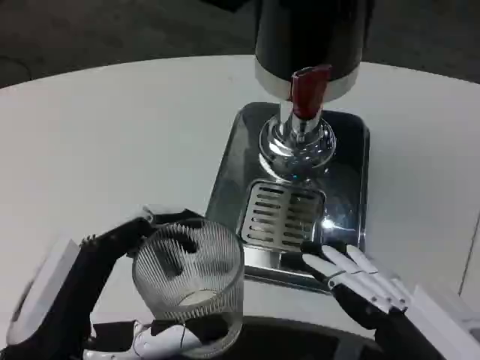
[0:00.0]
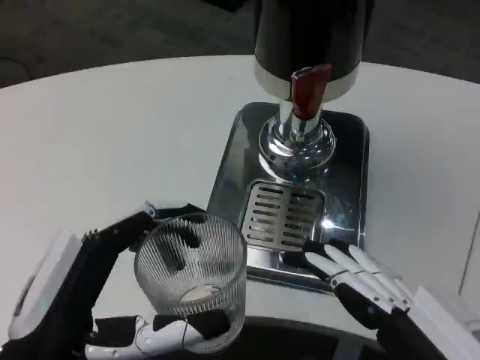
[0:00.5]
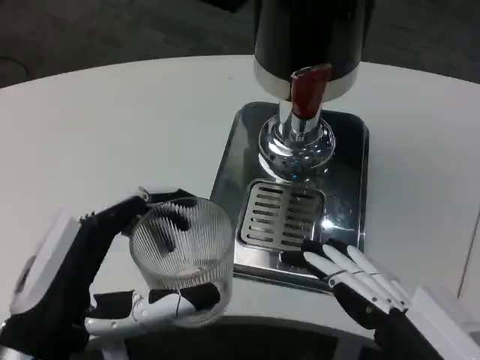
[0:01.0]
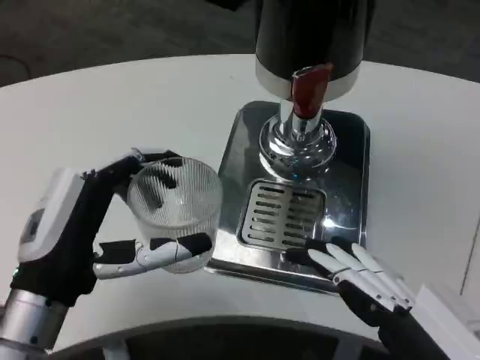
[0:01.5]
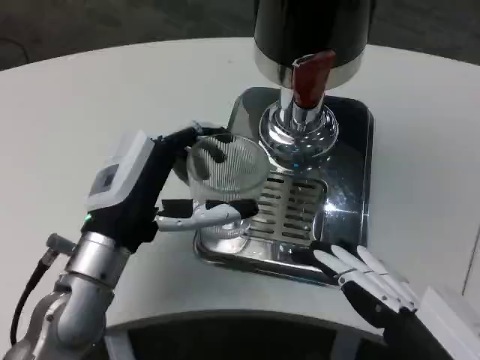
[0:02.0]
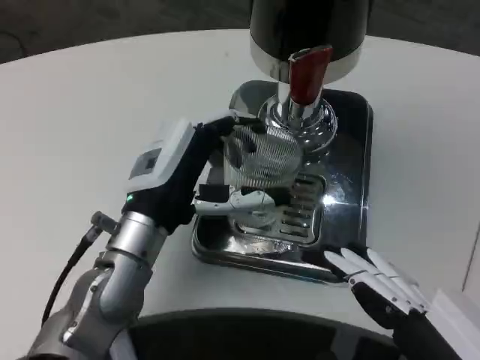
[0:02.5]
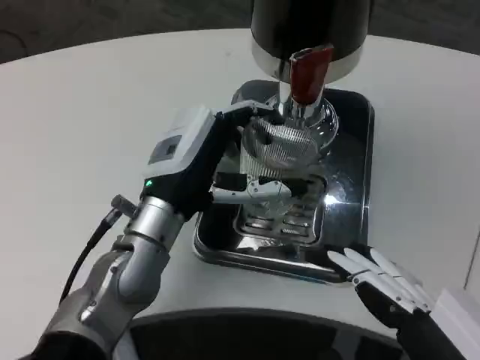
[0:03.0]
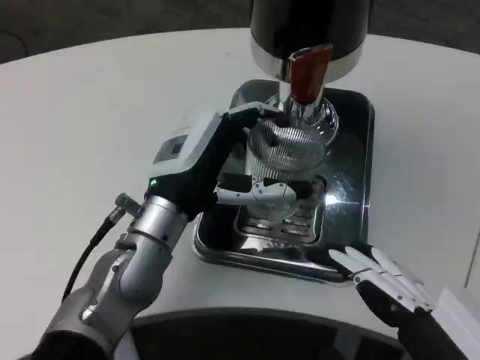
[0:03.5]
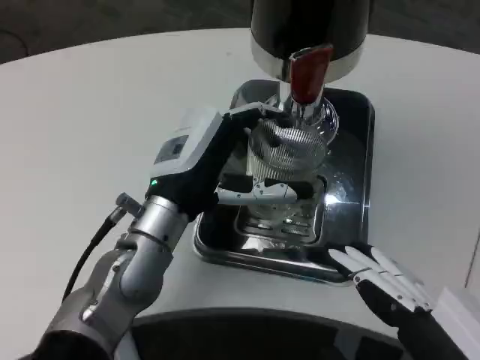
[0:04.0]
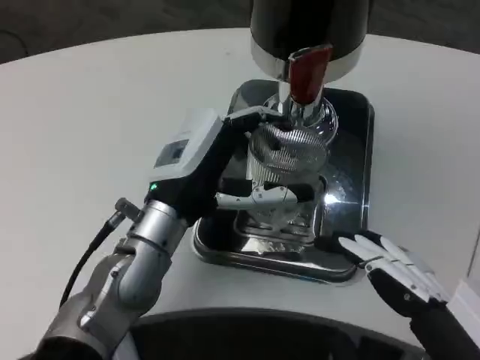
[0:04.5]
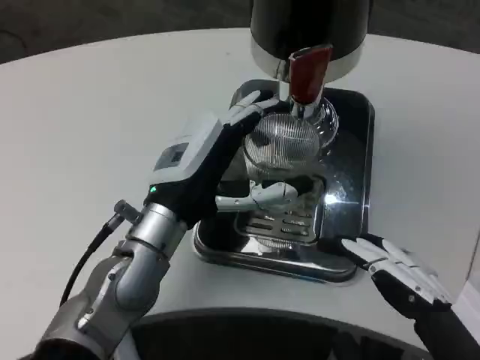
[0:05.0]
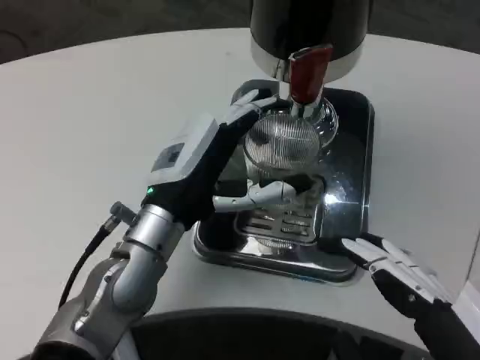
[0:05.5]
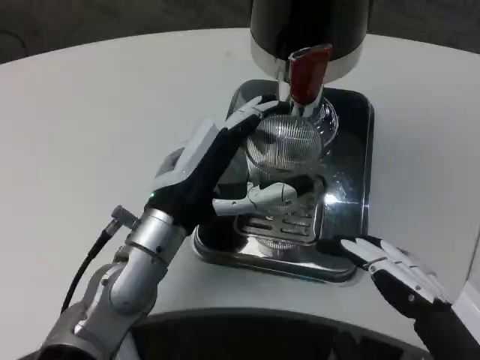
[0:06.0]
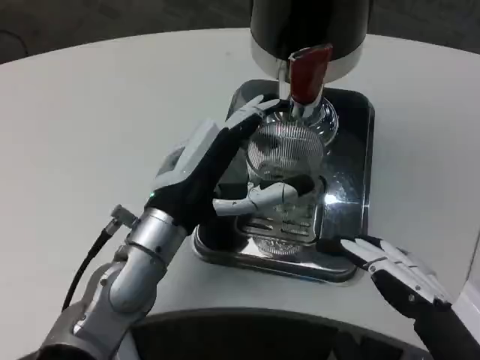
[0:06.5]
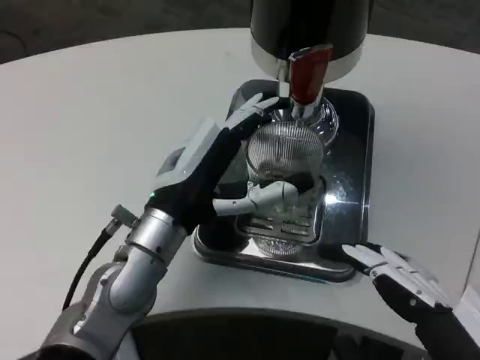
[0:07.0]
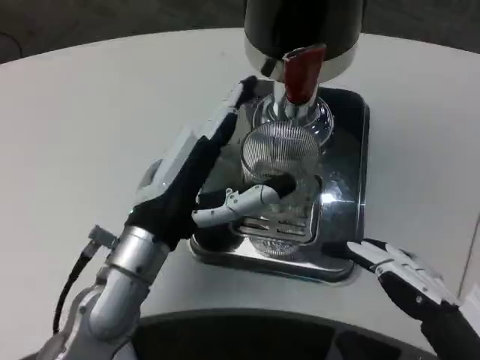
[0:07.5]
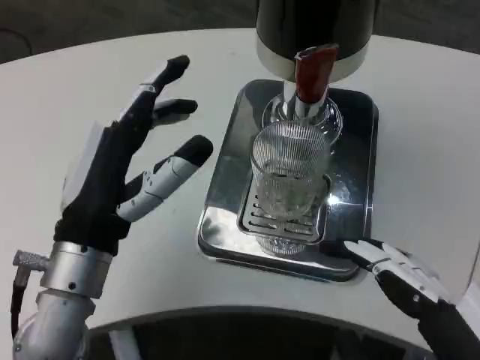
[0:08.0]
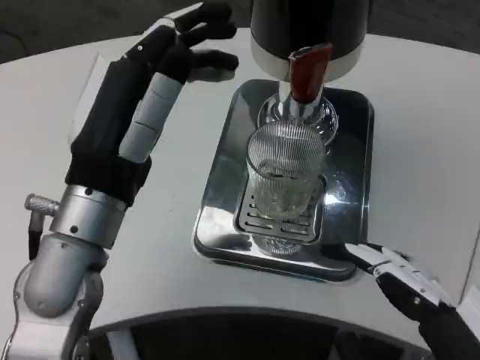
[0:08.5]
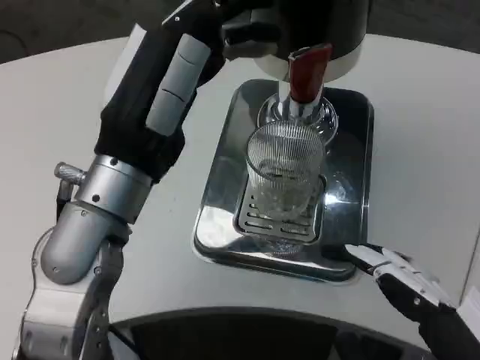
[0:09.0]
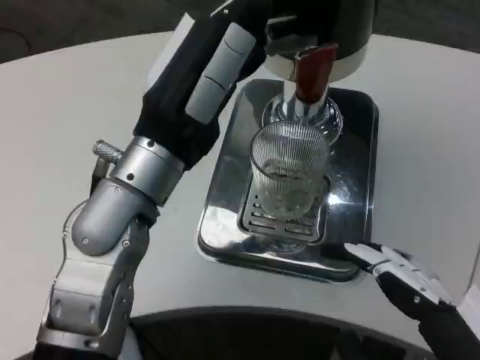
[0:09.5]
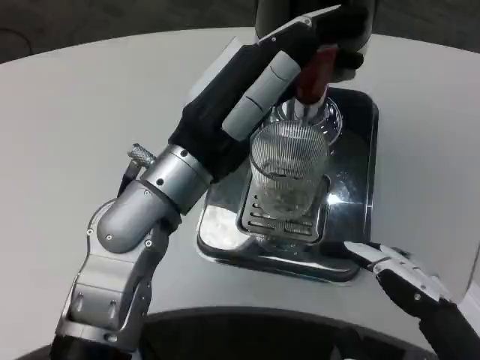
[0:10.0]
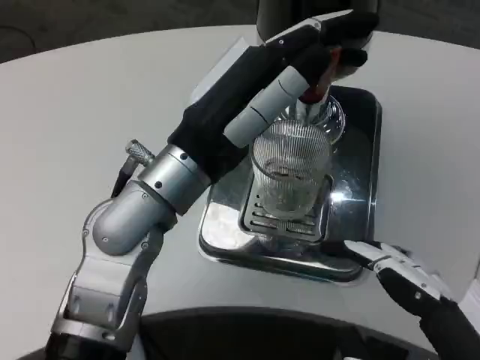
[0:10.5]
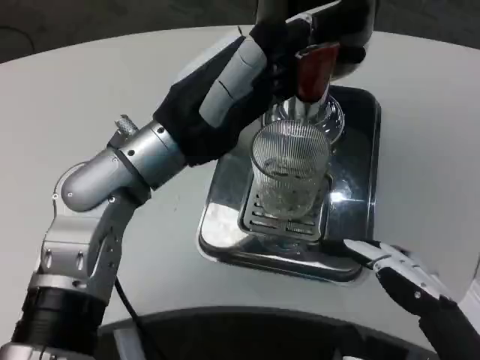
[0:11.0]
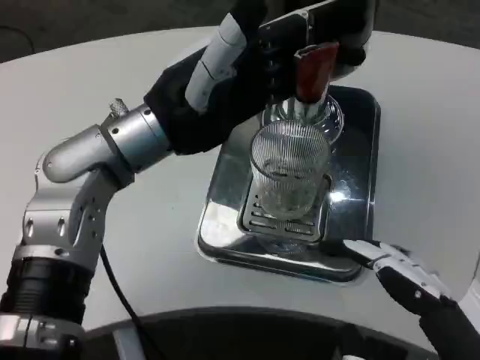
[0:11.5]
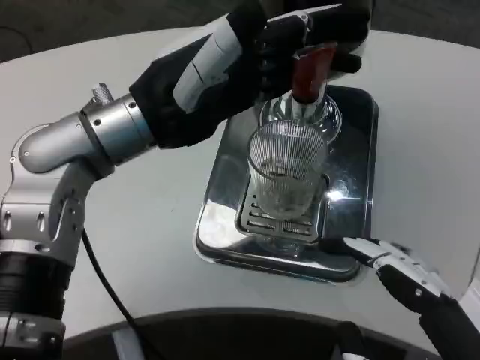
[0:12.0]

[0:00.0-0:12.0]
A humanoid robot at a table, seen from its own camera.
Task of the whole recording: Grasp the cup under the faucet to collect the drink, then remove the cup.
0:00.0 to 0:02.0: The left hand moves forward, approximately 15 cm.
0:02.0 to 0:04.0: The left hand shifts by some 5 cm.
0:04.0 to 0:06.0: The hands stay close to where they were, moving slightly.
0:06.0 to 0:08.0: The left hand shifts some 5 cm backward.
0:08.0 to 0:10.0: The left hand moves upward and to the right, approximately 10 cm.
0:10.0 to 0:12.0: The left hand shifts roughly 5 cm to the left.

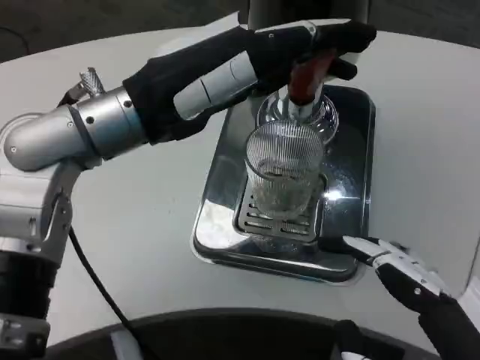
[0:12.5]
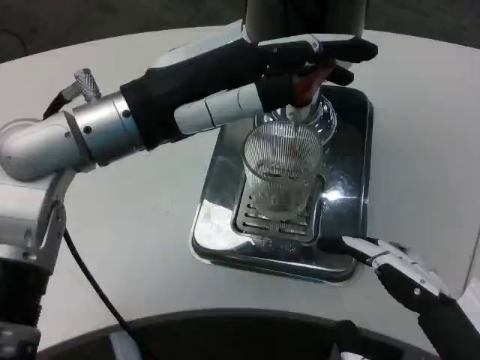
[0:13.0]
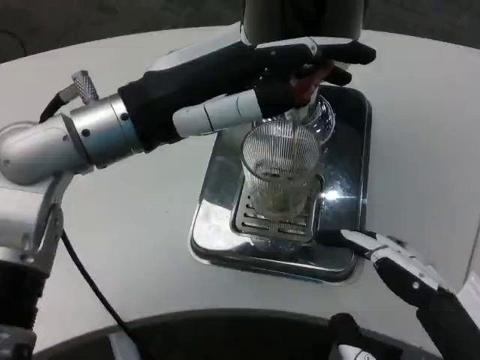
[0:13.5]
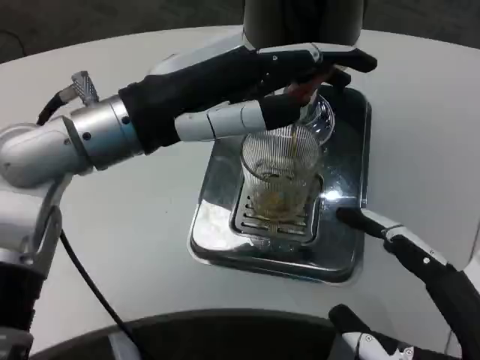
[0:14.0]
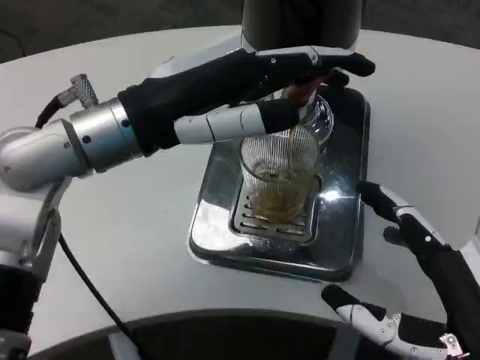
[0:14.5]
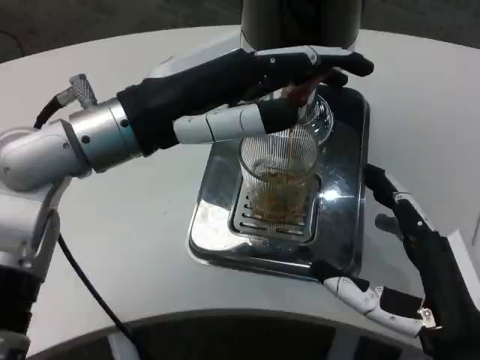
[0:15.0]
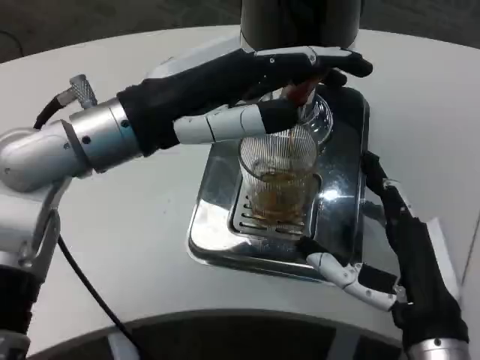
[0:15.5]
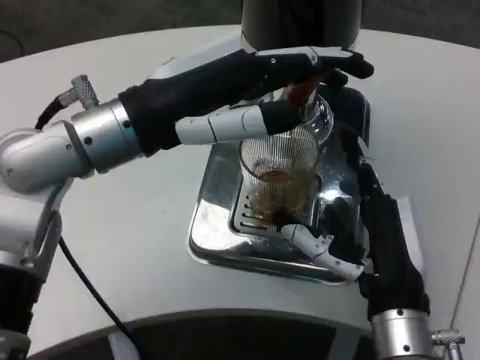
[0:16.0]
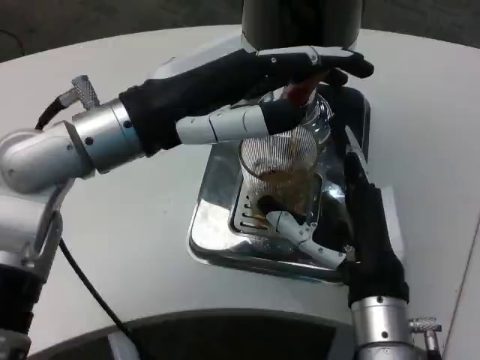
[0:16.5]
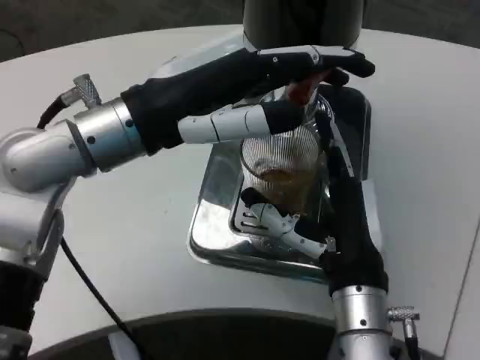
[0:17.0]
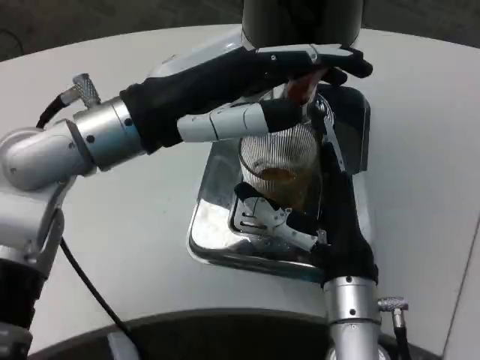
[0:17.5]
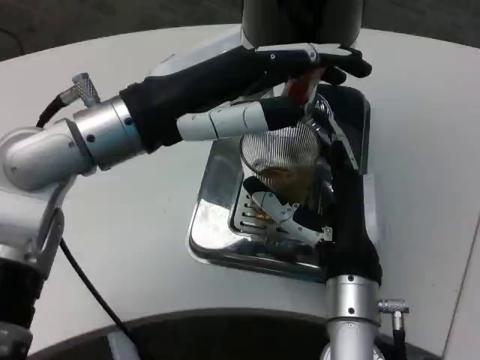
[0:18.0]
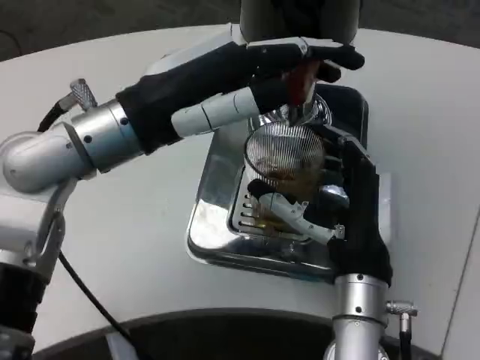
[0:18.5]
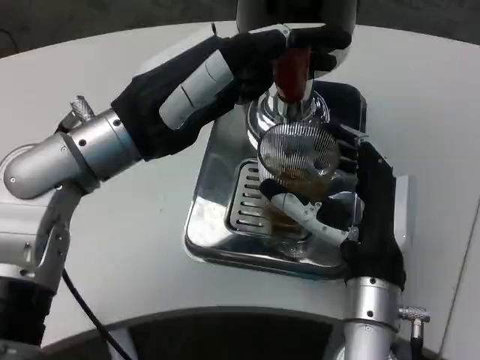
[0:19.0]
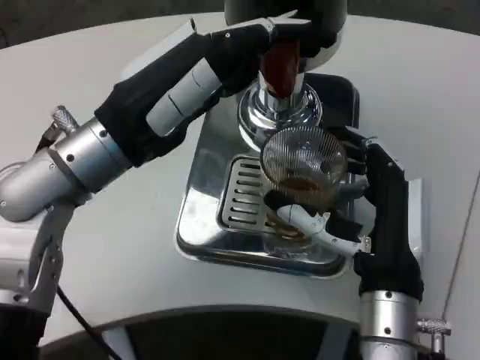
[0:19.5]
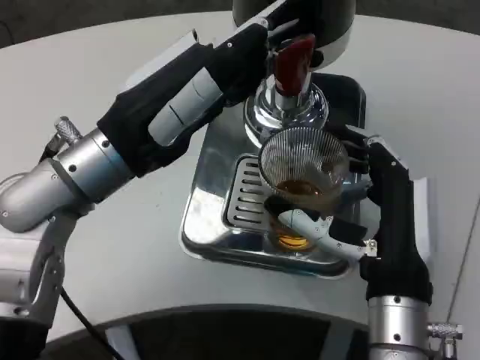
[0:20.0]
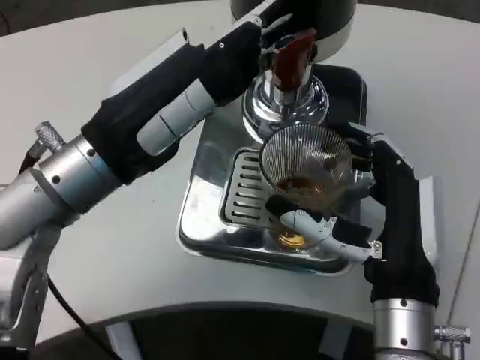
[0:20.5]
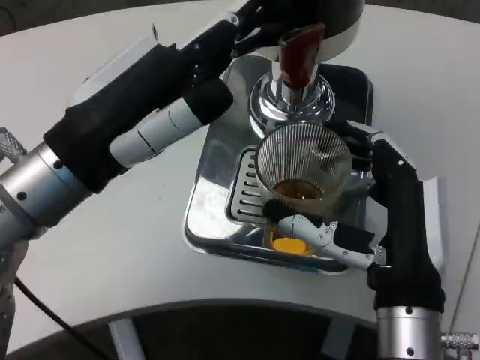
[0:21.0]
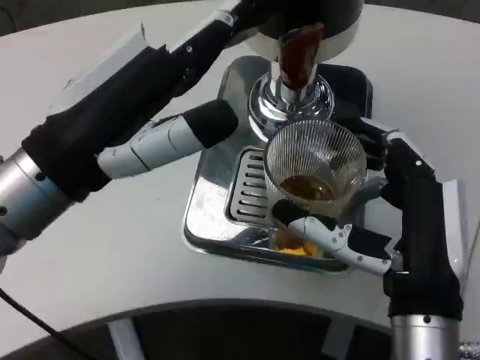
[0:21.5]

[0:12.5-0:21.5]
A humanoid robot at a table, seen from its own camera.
Task of the whole recording: Grasp the cup under the faucet to collect the drink, then remove the cup.
0:12.5 to 0:14.5: The right hand moves forward, some 5 cm.
0:14.5 to 0:17.0: The right hand heads forward and to the left, covering some 15 cm.
0:19.5 to 0:21.5: The right hand shifts by about 5 cm, while the left hand shifts some 10 cm backward.

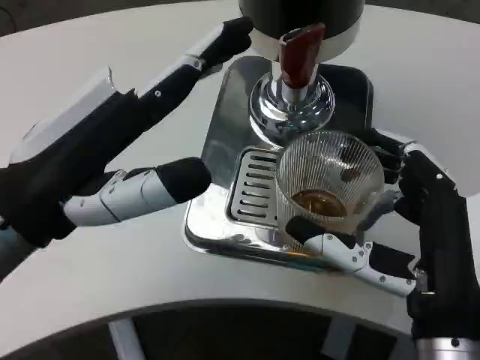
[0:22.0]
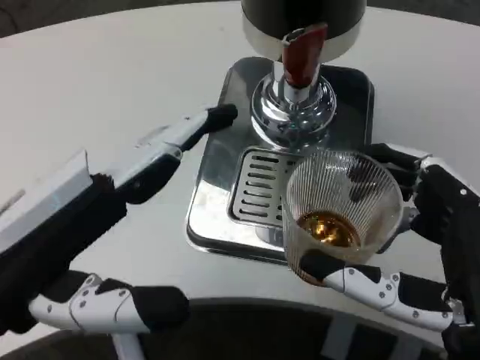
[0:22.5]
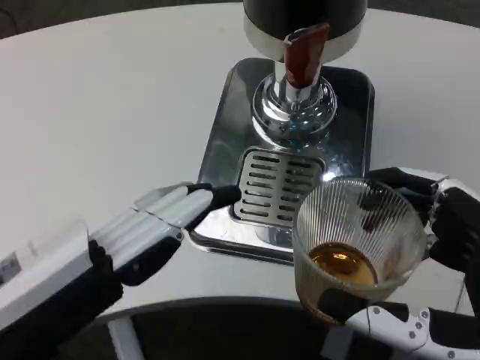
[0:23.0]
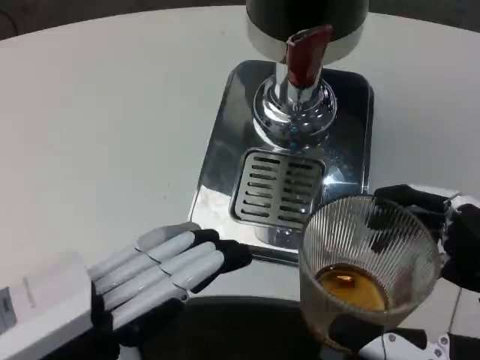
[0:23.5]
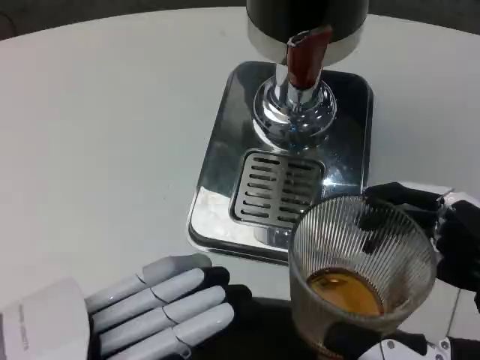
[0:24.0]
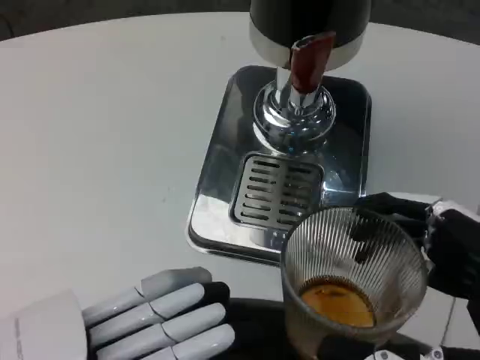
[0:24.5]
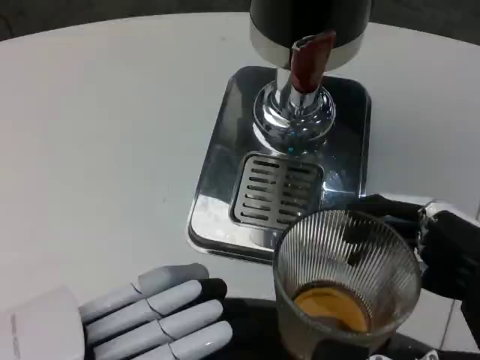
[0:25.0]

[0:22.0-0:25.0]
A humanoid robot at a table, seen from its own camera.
Task of the whole recording: Grasp the cup under the faucet to collect the drink, then remove the cup.
0:22.0 to 0:23.5: Both hands travel together backward, some 10 cm.

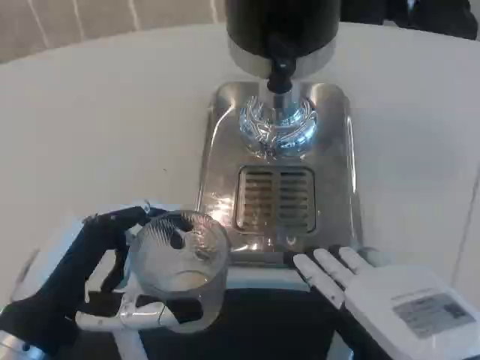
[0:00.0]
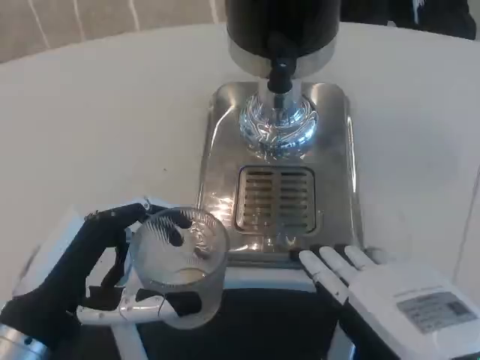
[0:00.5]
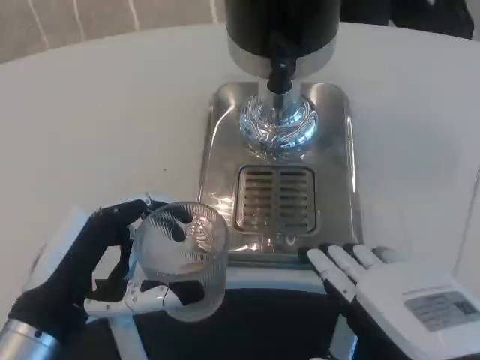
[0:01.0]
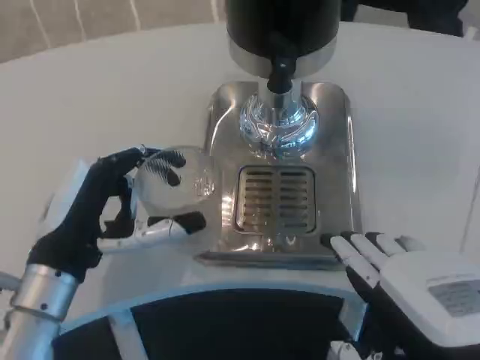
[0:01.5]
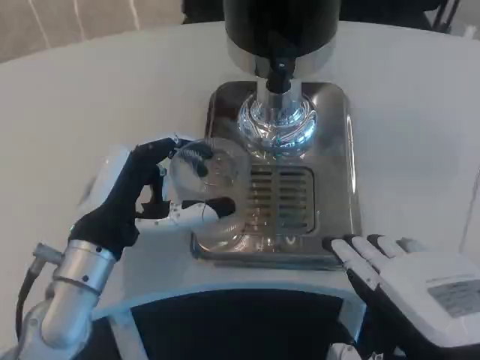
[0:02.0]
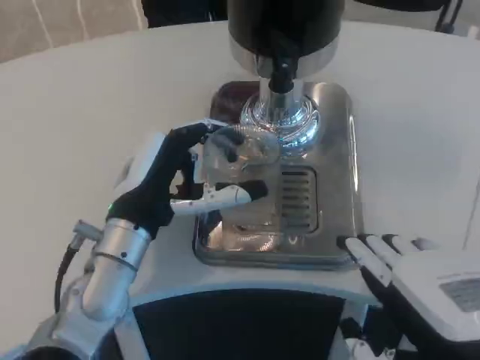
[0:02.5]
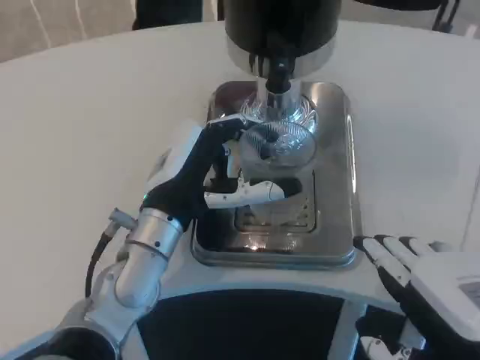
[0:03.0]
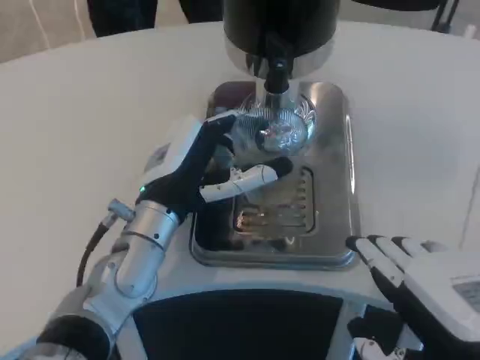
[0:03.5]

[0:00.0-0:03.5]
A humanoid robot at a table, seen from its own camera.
Task of the whole recording: Grasp the cup under the faucet to collect the drink, then remove the cup.
0:00.0 to 0:02.0: The left hand goes some 10 cm forward.
0:02.0 to 0:03.5: The left hand travels to the right by roughly 5 cm.
